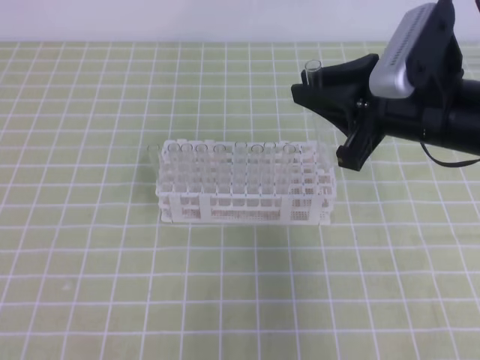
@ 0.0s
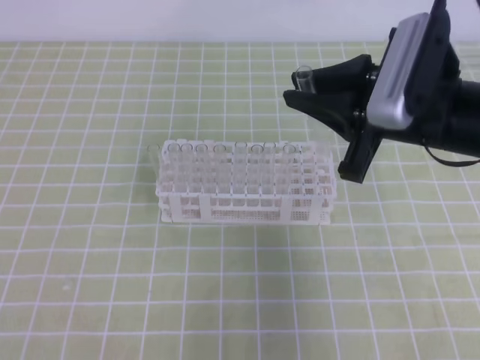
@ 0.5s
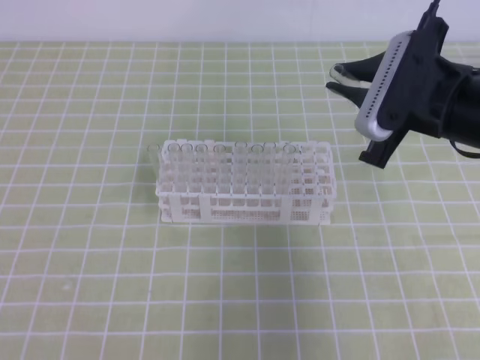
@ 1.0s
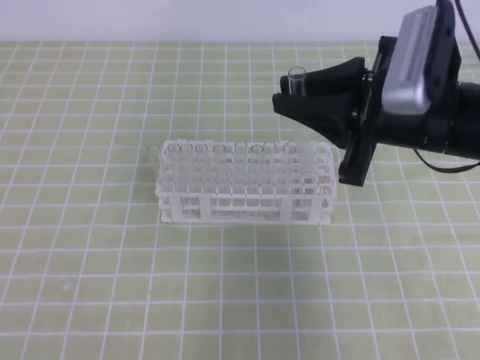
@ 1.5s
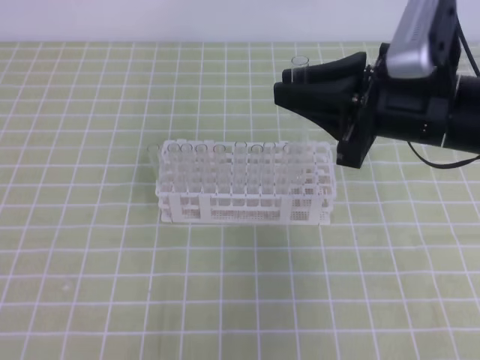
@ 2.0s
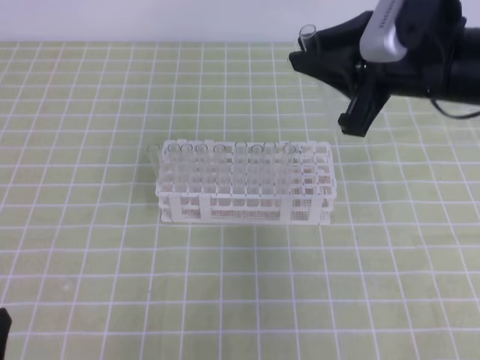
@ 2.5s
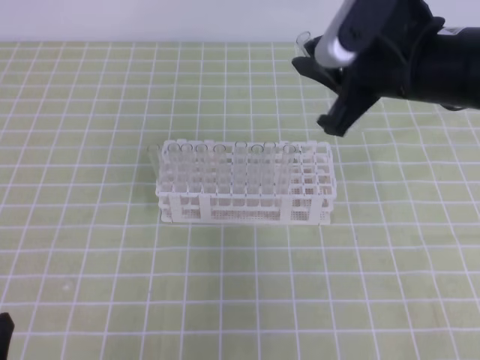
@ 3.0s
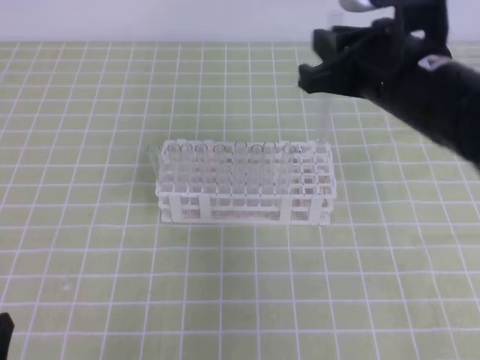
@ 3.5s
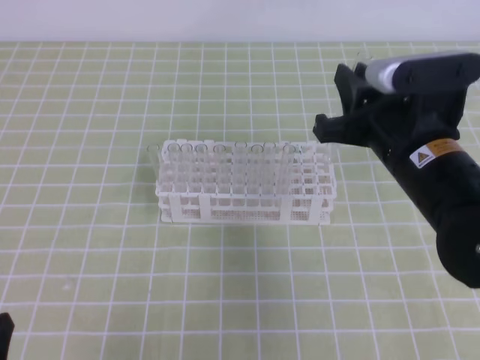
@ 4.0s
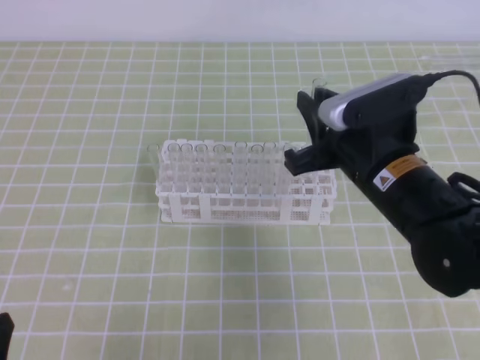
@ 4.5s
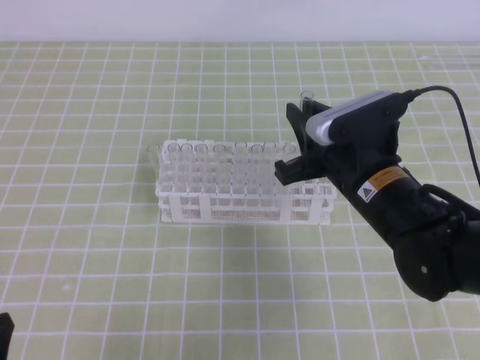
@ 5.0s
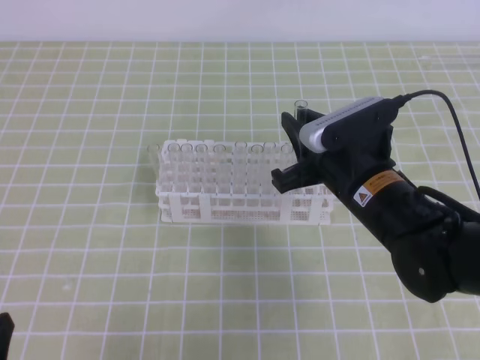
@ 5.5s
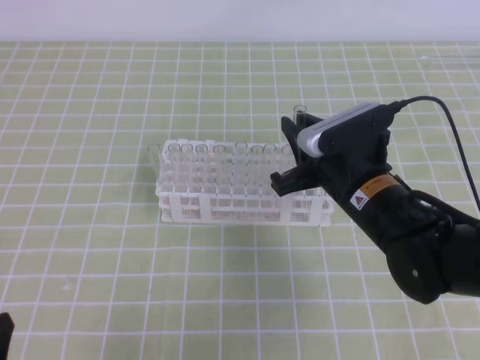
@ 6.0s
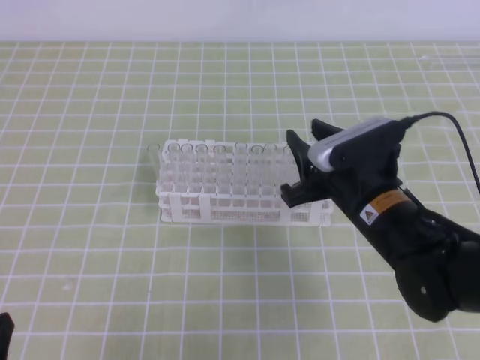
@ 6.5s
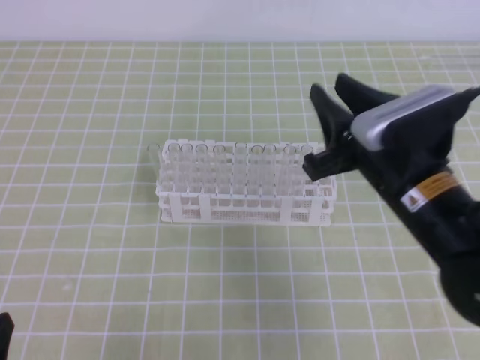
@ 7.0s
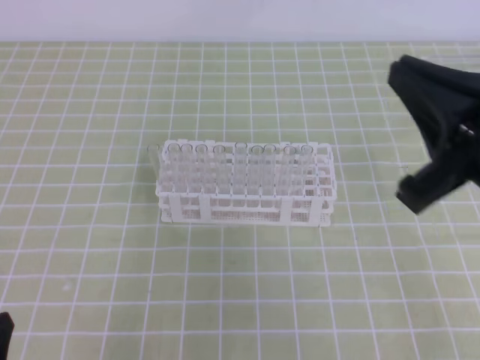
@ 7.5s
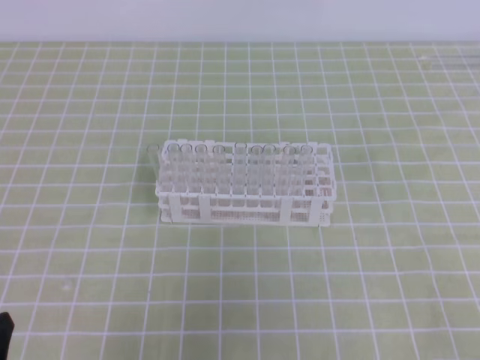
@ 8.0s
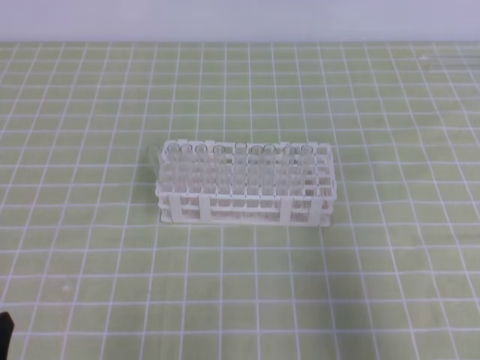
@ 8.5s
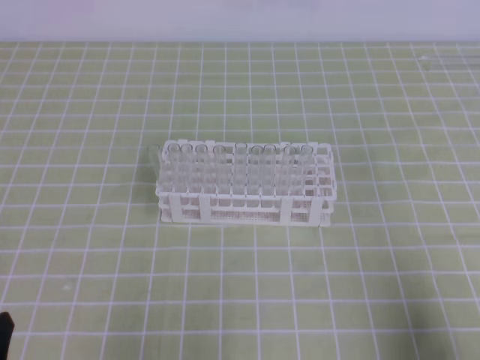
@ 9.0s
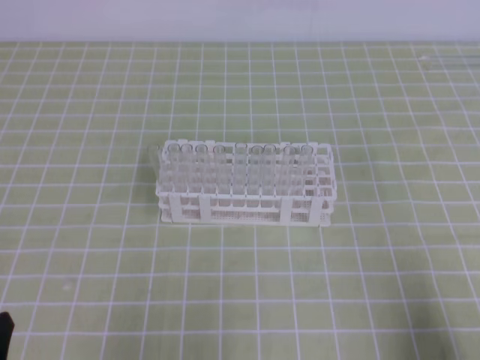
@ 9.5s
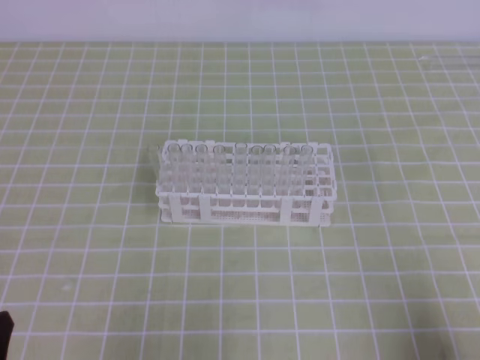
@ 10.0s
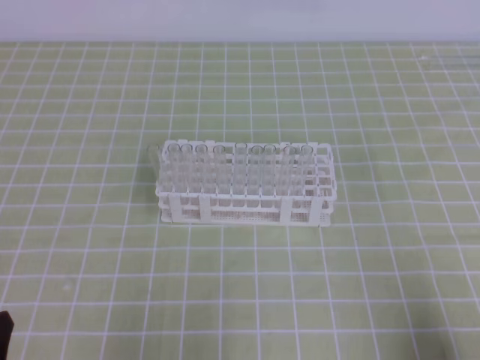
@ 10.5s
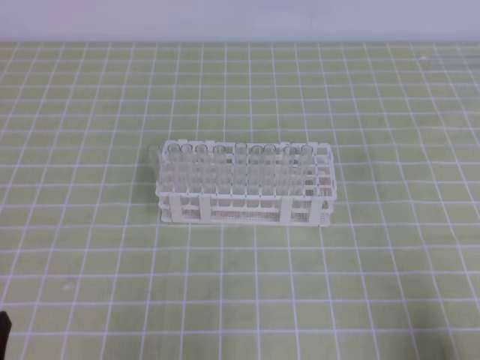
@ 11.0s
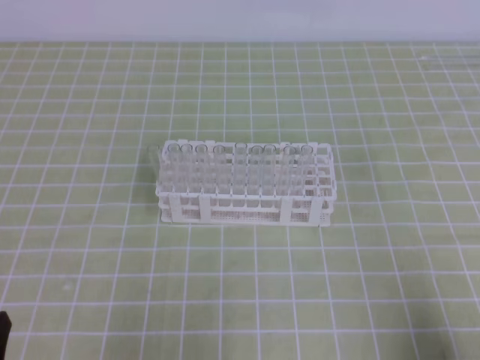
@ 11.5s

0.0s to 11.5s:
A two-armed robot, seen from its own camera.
4.0s to 6.0s: The right gripper is displaced downward by roughly 10 cm.
6.0s to 7.5s: The right gripper is displaced upward, backward and to the right by roughly 20 cm, and opens, then closes again.
7.5s to 9.5s: The right gripper moves downward, to the right and backward, about 25 cm.

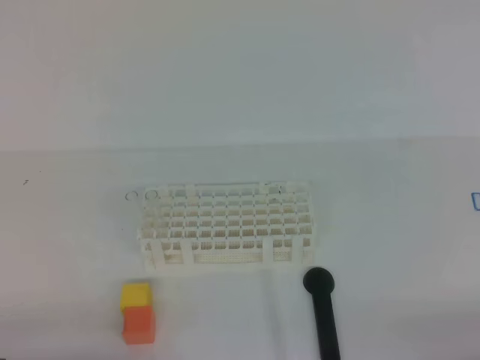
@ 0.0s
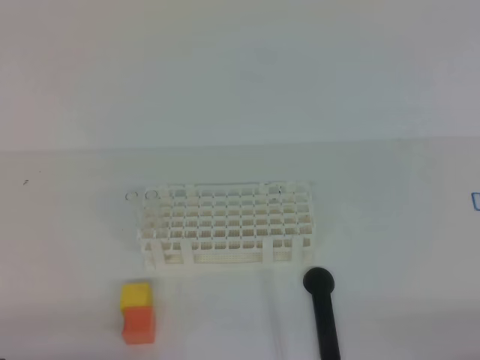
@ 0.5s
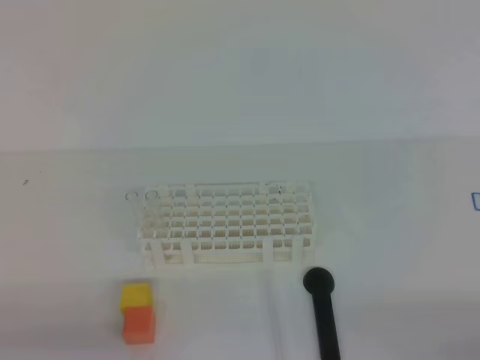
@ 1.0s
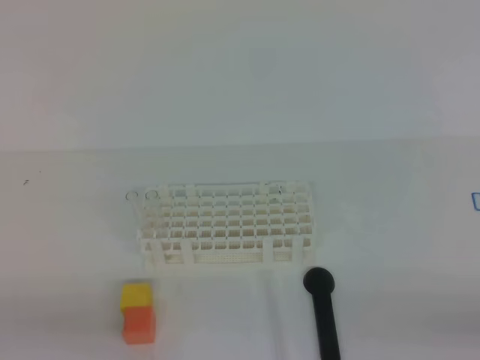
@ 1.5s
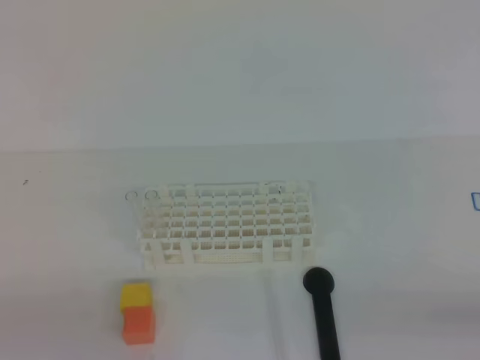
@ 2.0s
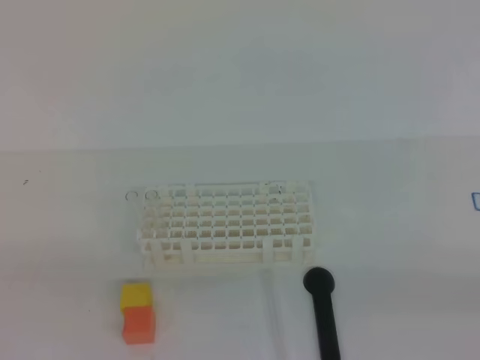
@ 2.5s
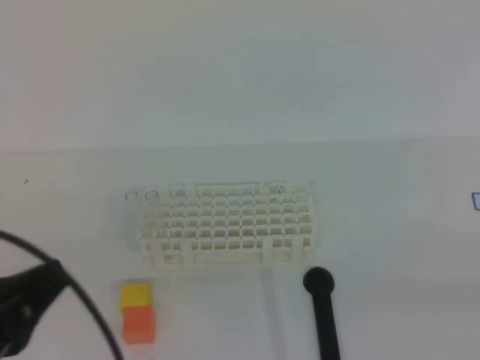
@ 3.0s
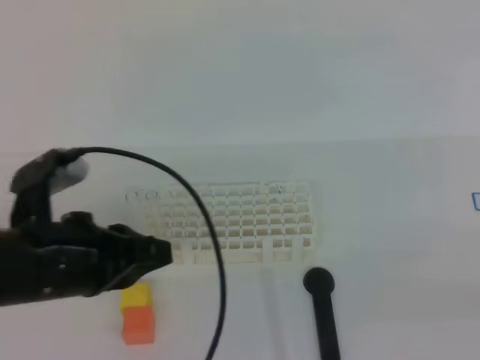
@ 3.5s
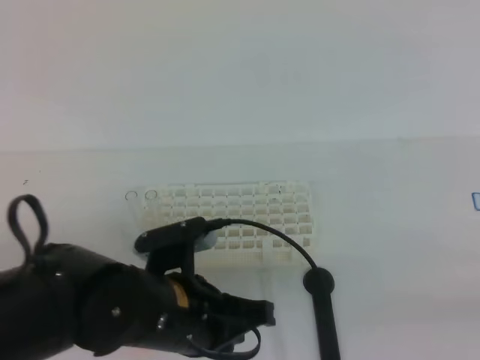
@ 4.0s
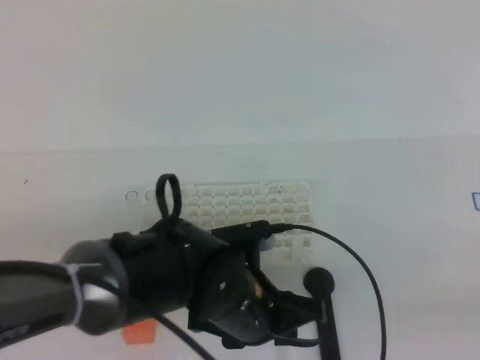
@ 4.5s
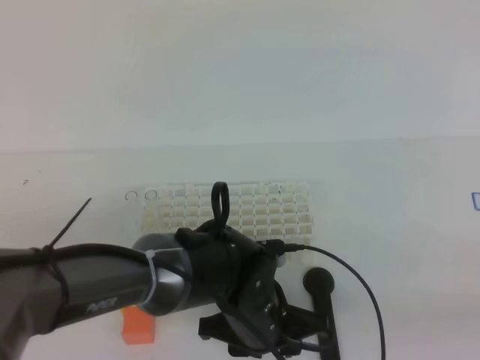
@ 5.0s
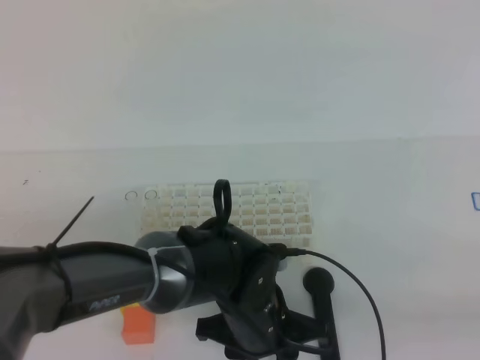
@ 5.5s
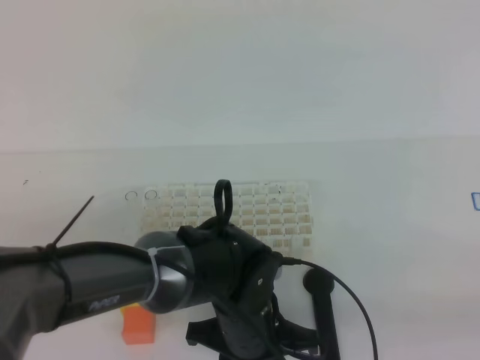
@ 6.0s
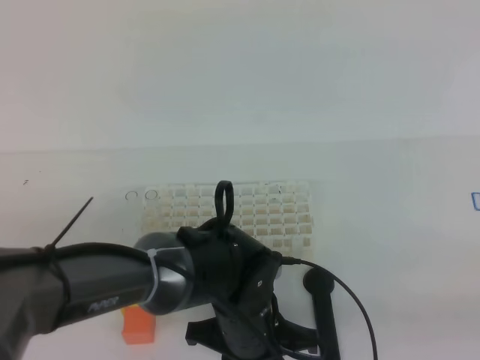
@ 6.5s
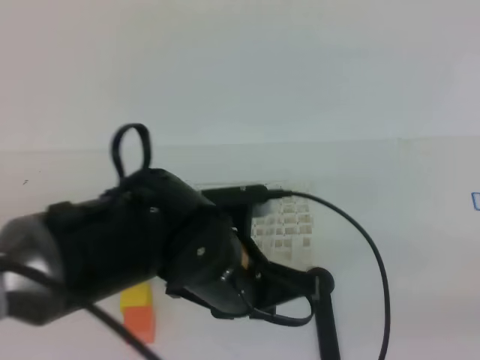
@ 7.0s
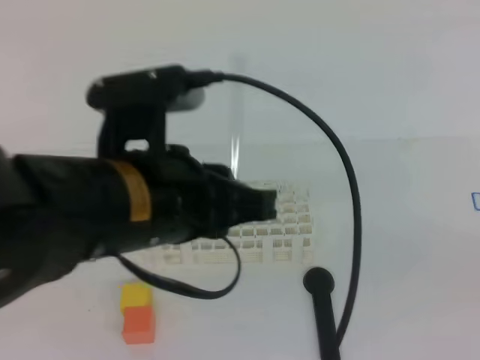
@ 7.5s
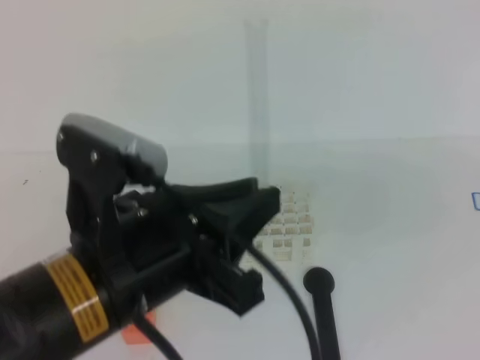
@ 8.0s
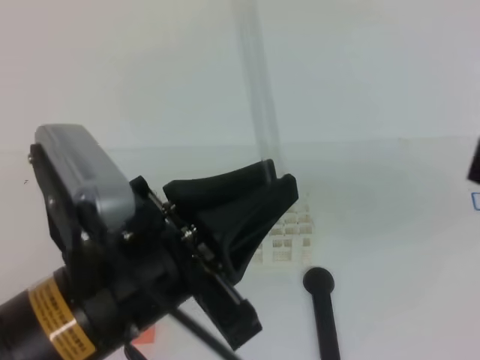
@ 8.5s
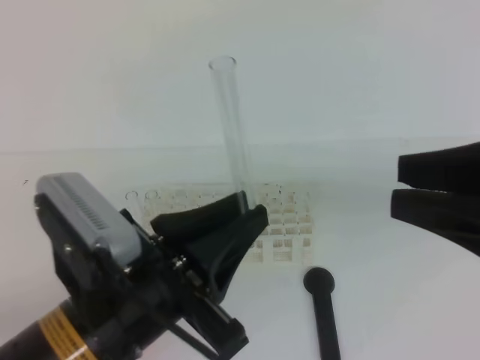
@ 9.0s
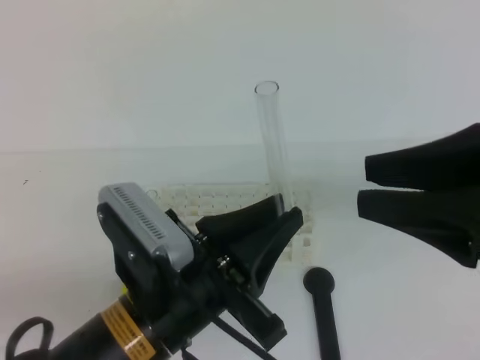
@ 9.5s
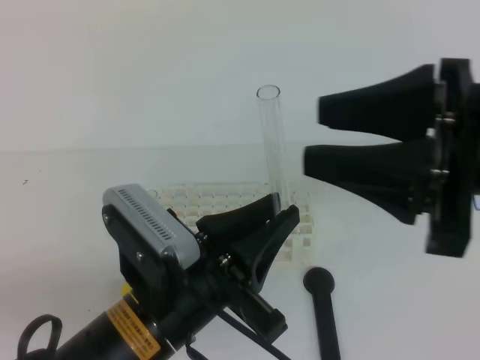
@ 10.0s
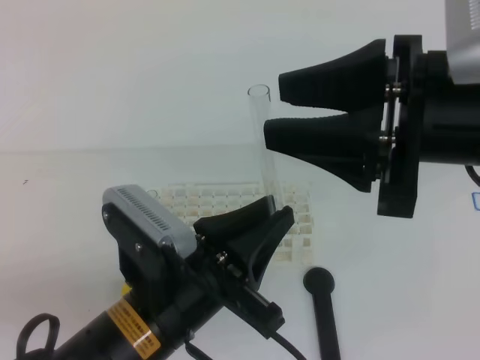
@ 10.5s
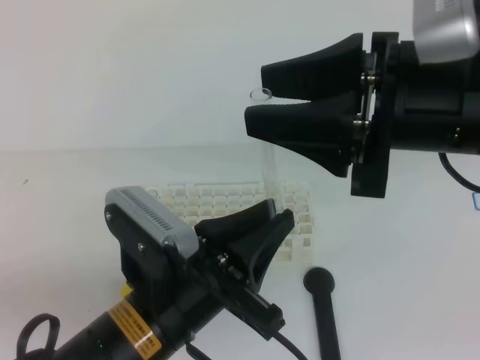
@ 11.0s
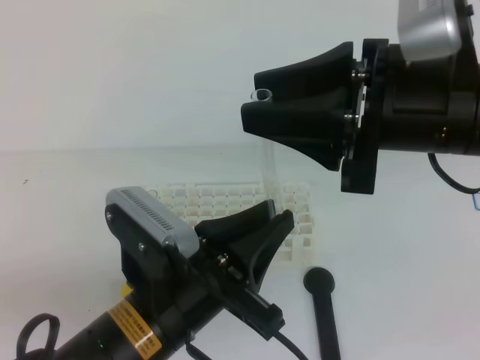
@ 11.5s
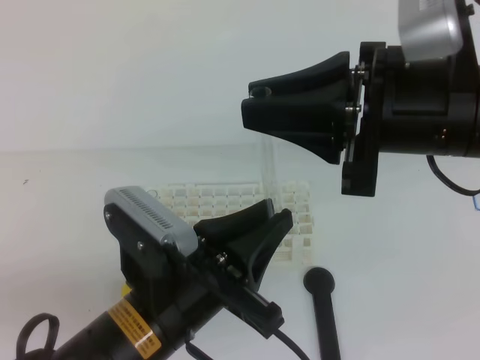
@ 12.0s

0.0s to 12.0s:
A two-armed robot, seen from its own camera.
2.0s to 4.0s: The right gripper heads upward, covering approximately 10 cm, while the left gripper is displaced to the right and forward by roughly 25 cm.
4.0s to 6.0s: The left gripper is displaced downward and to the right by about 10 cm, and opens up.
6.0s to 8.0s: The right gripper is displaced upward and forward by approximately 10 cm; the left gripper heads upward, to the left and backward, covering some 25 cm, and closes its fingers.
8.0s to 10.0s: The right gripper heads to the left and forward, covering roughly 15 cm, and opens. Meanwhile the left gripper heads downward, covering approximately 10 cm.
10.0s to 12.0s: The right gripper moves about 5 cm, and closes.

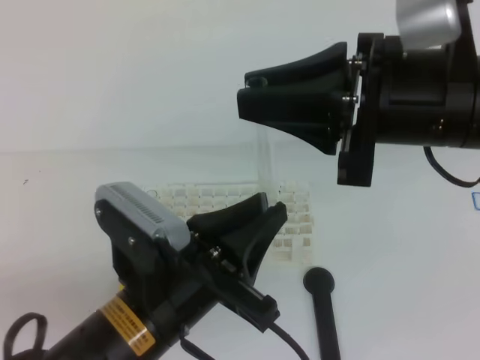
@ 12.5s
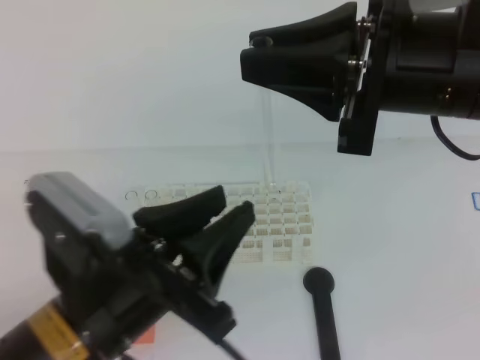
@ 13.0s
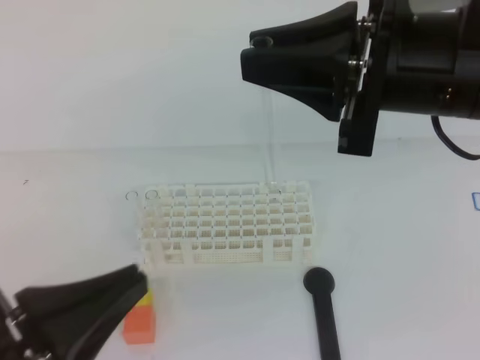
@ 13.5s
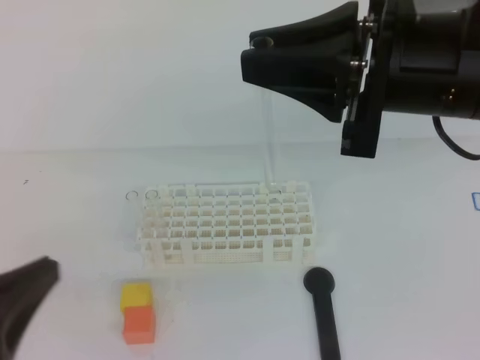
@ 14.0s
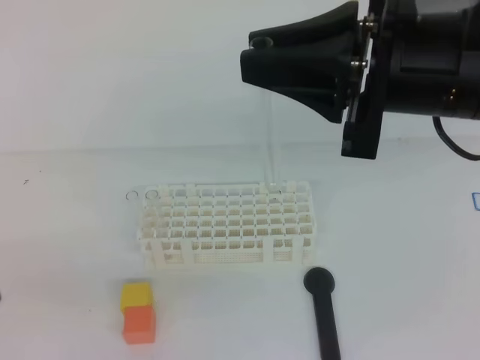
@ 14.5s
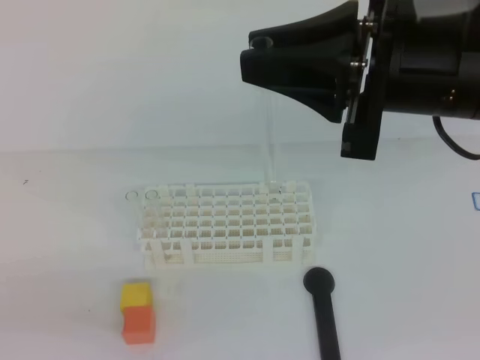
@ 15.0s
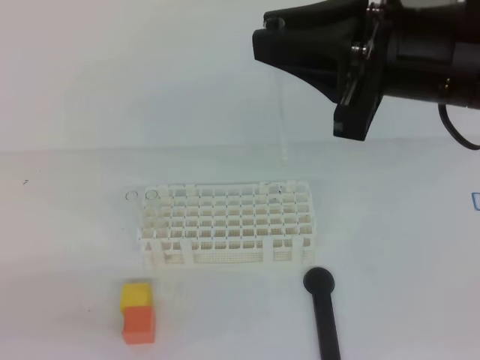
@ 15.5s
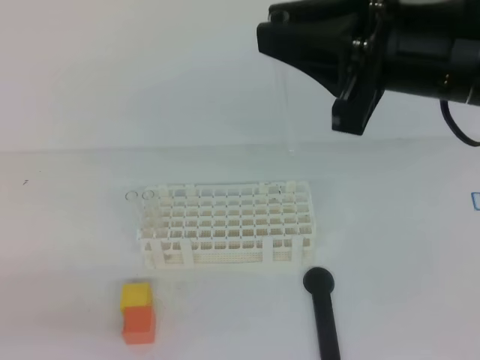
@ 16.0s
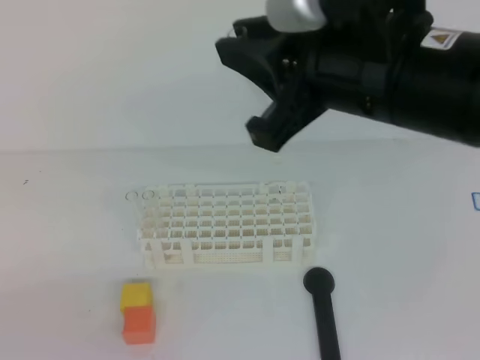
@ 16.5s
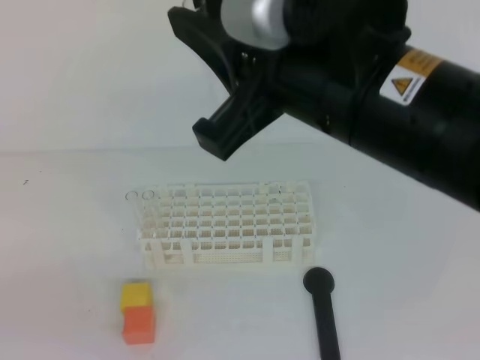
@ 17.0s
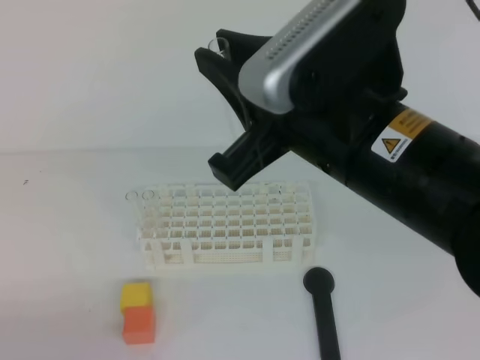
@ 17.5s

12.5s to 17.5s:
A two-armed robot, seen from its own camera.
12.5s to 15.0s: The left gripper goes about 25 cm to the left and backward, and closes up.
15.0s to 17.5s: The right gripper is displaced to the left by approximately 5 cm, while the left gripper shifts roughly 10 cm downward.
